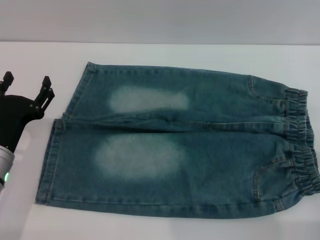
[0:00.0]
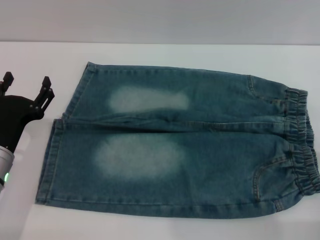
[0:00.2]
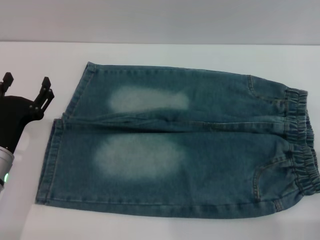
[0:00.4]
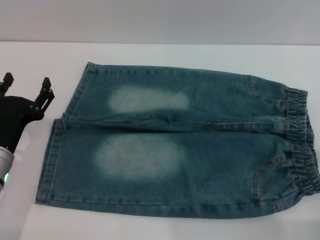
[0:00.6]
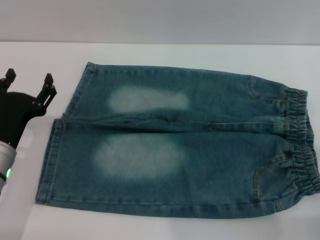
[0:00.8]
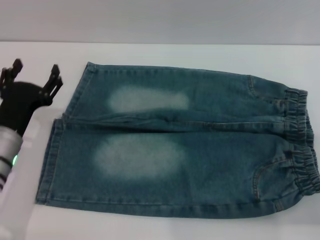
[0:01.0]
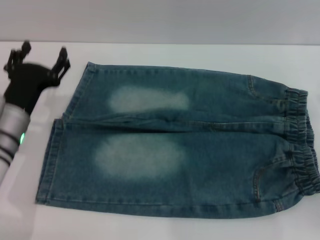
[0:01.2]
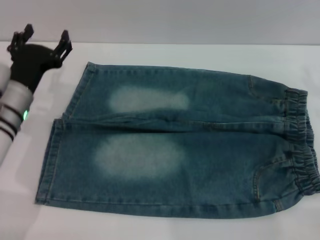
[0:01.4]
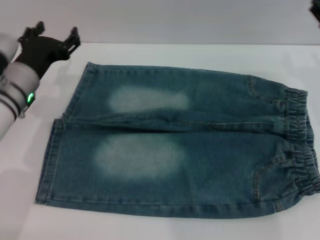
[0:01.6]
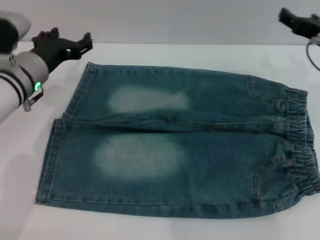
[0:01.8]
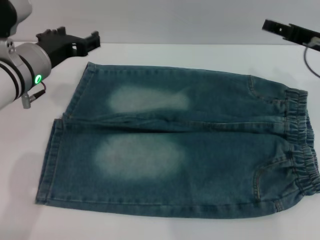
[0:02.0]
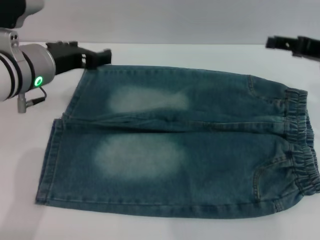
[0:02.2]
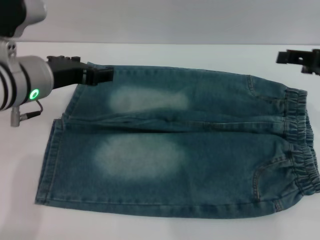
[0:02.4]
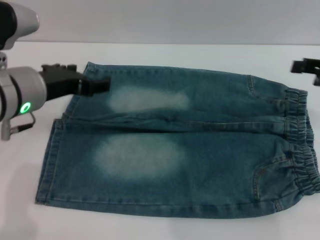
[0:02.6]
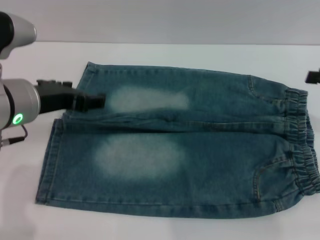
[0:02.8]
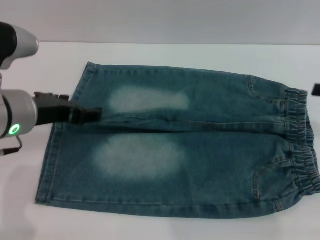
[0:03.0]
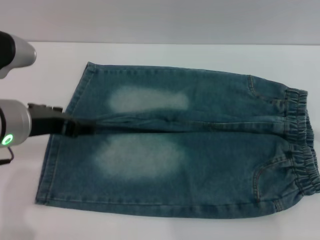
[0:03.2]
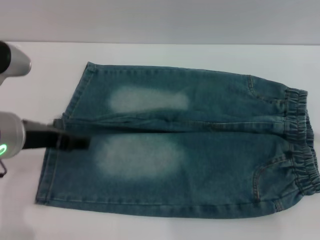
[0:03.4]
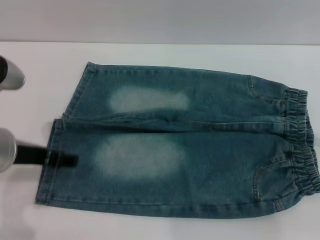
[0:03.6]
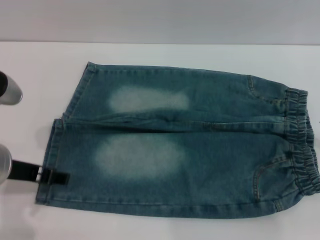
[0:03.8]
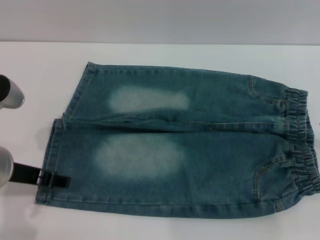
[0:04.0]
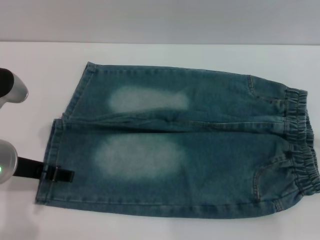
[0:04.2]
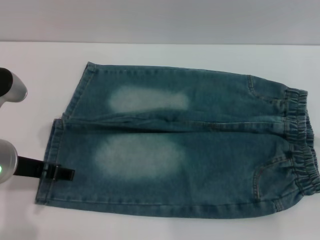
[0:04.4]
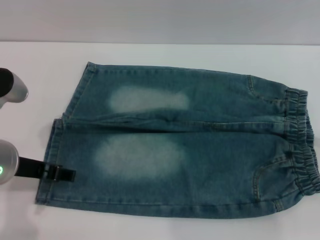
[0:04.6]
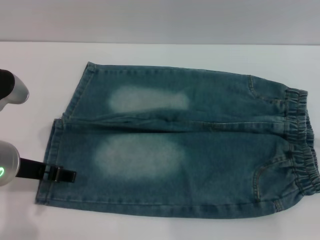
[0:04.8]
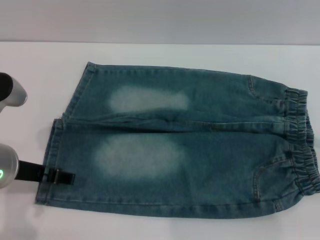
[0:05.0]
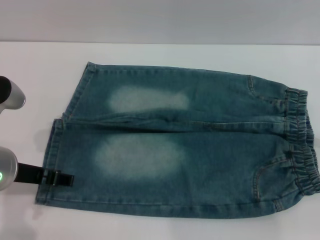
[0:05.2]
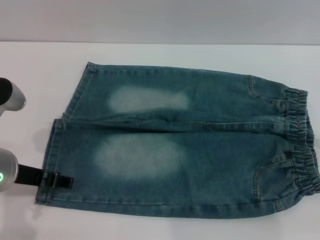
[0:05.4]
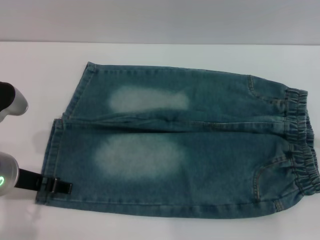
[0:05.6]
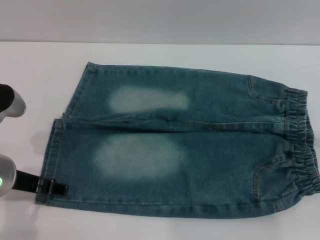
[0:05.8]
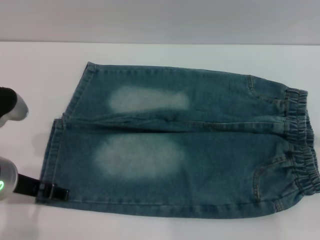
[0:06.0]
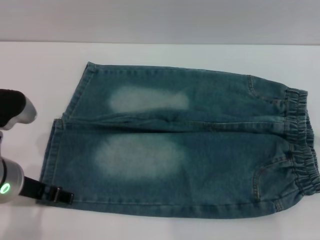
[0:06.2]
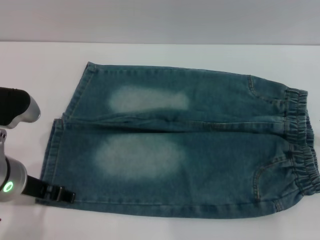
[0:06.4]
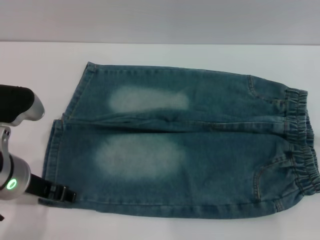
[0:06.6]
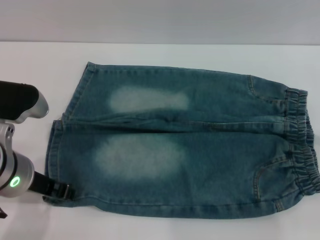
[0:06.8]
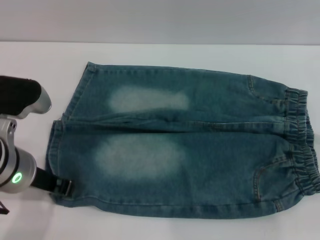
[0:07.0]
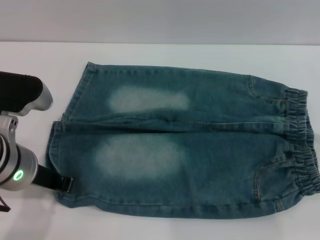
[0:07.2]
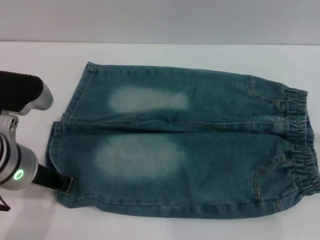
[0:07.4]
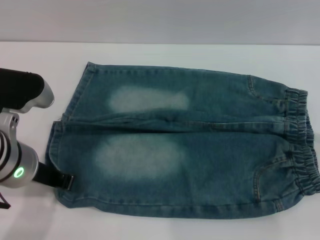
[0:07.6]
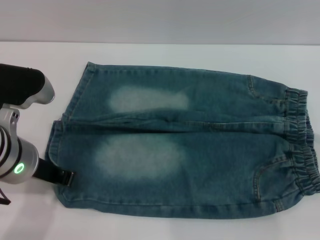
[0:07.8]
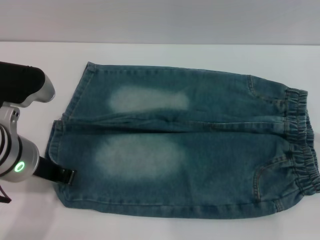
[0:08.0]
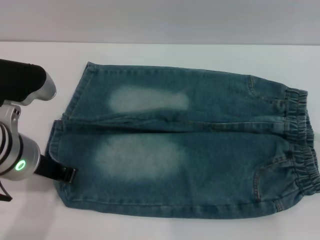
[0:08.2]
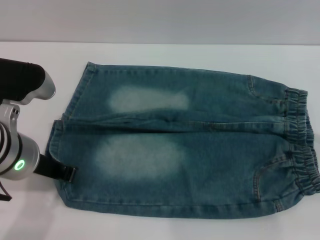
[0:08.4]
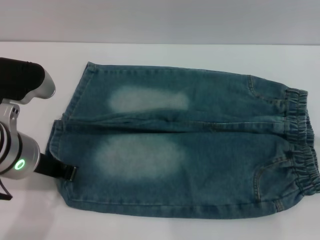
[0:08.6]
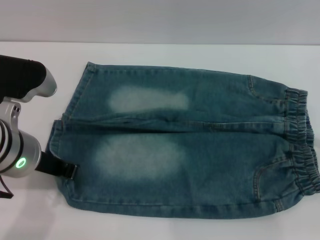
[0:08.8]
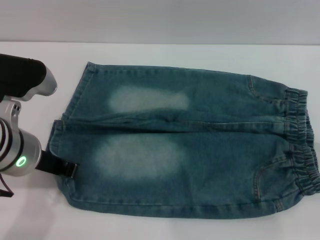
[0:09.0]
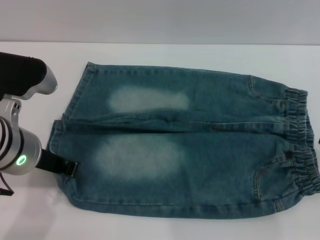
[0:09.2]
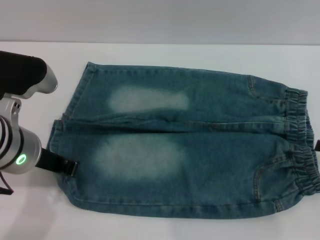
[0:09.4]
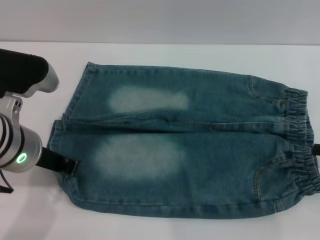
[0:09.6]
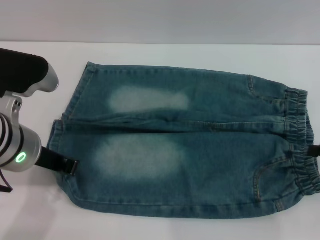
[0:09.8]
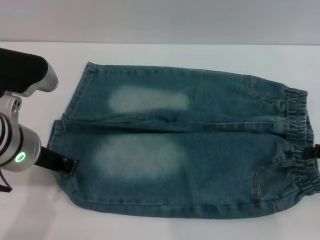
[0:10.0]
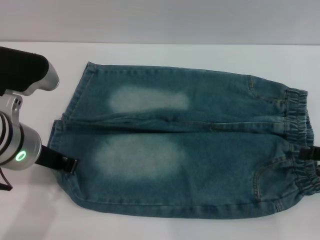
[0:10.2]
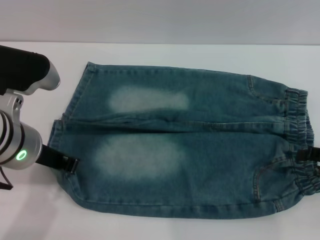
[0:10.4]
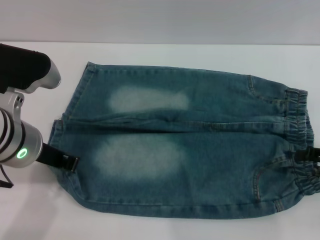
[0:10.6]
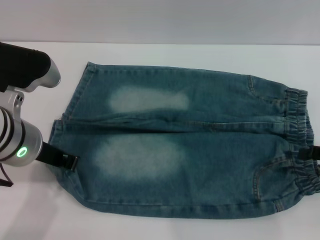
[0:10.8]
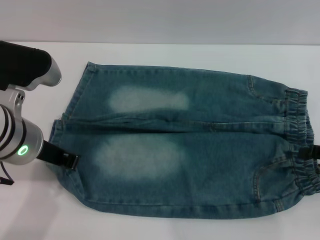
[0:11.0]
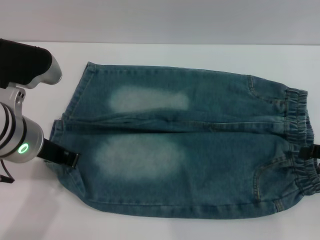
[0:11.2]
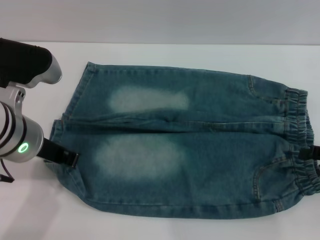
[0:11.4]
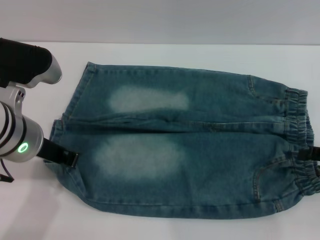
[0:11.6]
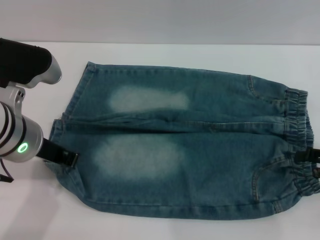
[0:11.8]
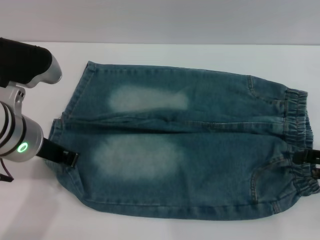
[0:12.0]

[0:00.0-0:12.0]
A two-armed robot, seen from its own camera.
0:00.0 to 0:01.6: The right gripper heads forward and upward, covering approximately 20 cm. Meanwhile the left gripper shifts roughly 15 cm forward and upward.
0:01.6 to 0:03.0: The left gripper travels backward and upward by some 10 cm.
0:04.4 to 0:06.0: The grippers stay close to where they were, moving slightly.
0:06.0 to 0:07.6: The left gripper closes its fingers.
0:07.6 to 0:10.4: The grippers make only small movements.
0:10.4 to 0:12.0: Neither gripper changes place.

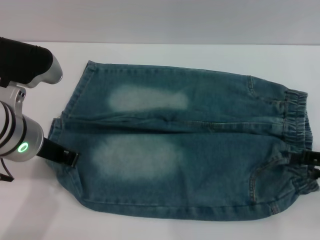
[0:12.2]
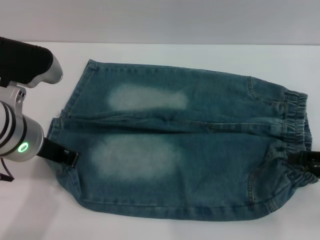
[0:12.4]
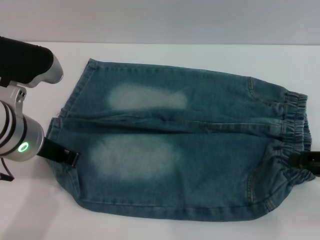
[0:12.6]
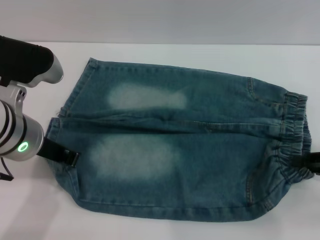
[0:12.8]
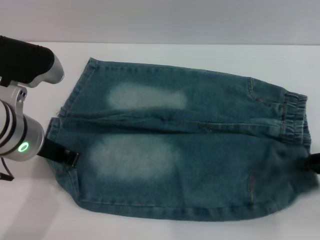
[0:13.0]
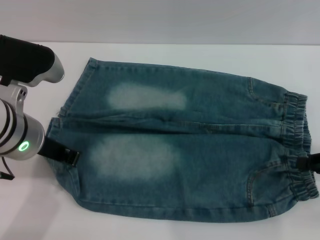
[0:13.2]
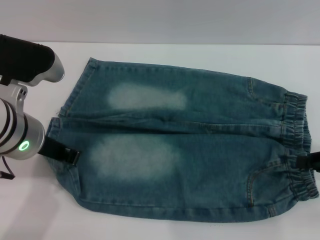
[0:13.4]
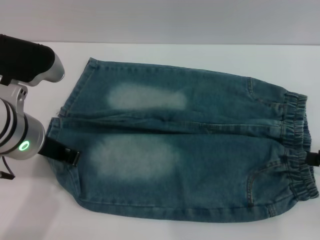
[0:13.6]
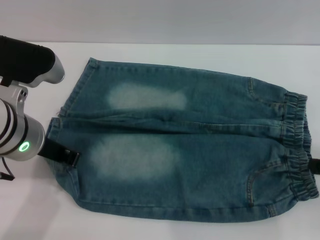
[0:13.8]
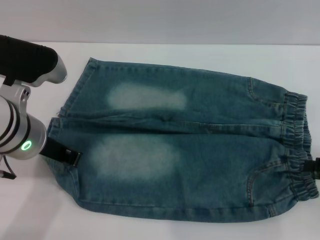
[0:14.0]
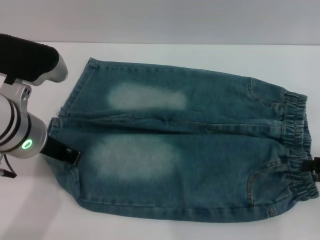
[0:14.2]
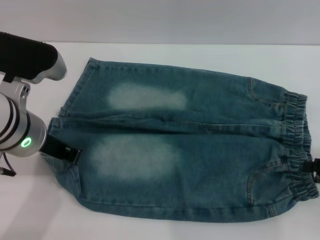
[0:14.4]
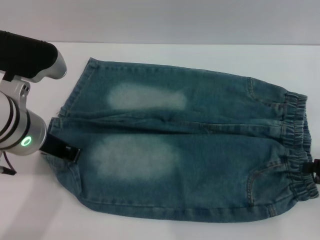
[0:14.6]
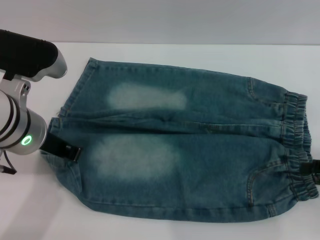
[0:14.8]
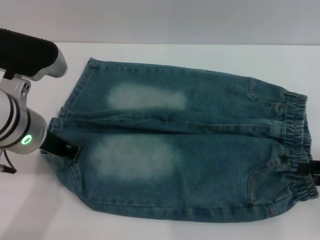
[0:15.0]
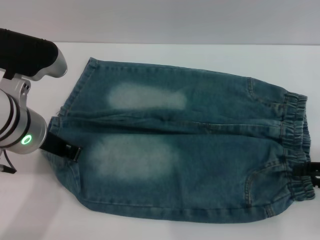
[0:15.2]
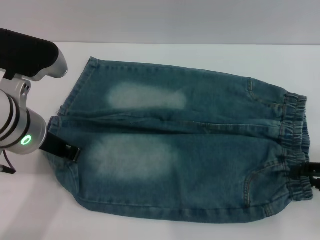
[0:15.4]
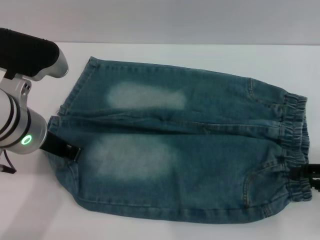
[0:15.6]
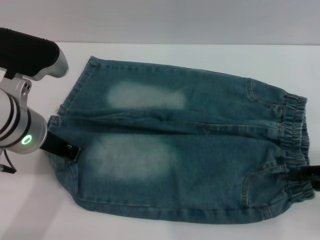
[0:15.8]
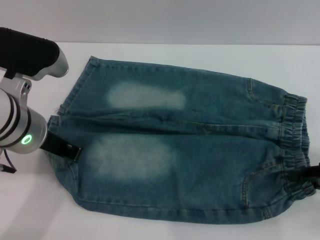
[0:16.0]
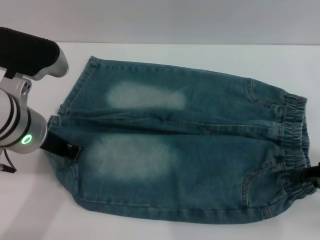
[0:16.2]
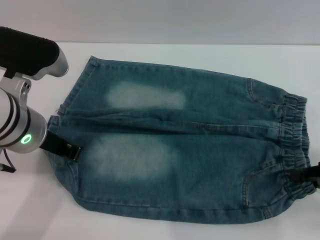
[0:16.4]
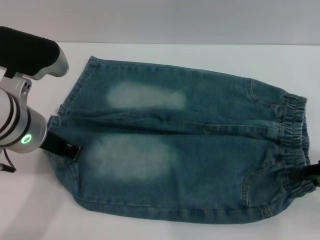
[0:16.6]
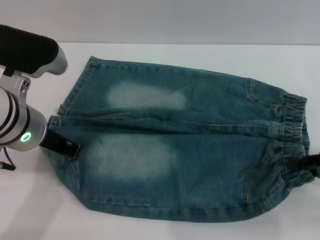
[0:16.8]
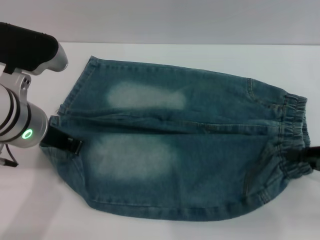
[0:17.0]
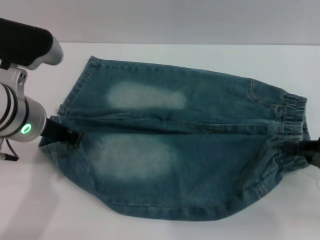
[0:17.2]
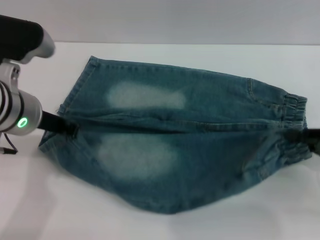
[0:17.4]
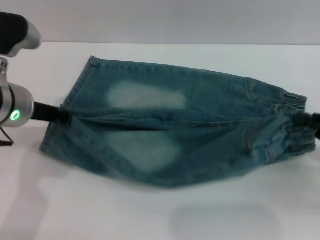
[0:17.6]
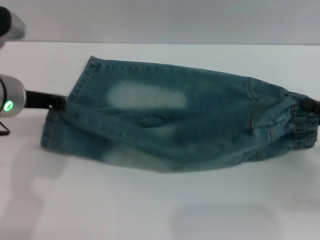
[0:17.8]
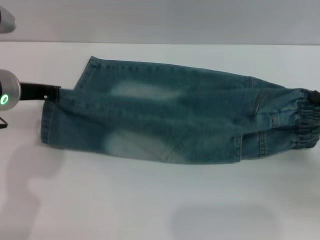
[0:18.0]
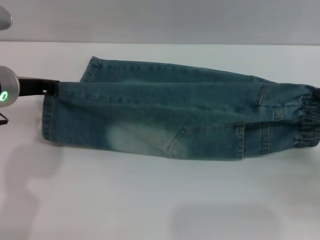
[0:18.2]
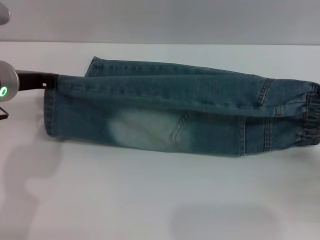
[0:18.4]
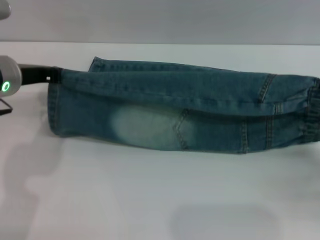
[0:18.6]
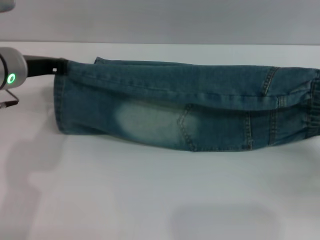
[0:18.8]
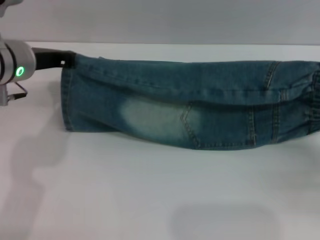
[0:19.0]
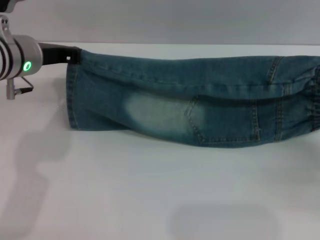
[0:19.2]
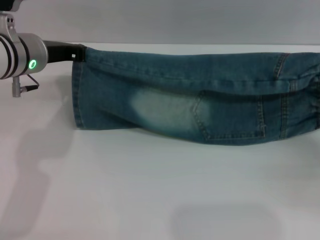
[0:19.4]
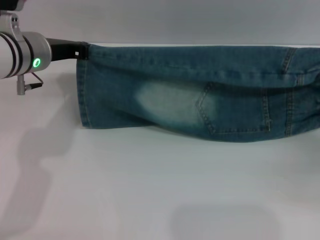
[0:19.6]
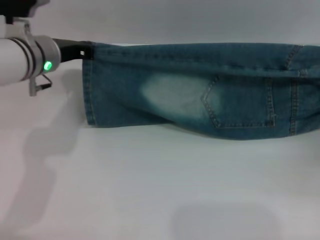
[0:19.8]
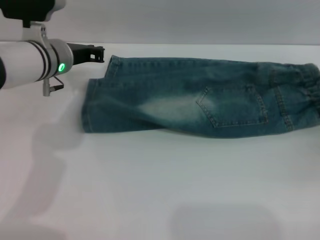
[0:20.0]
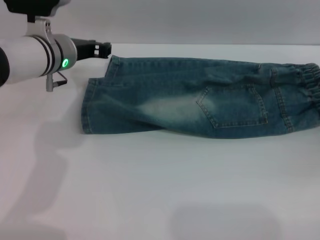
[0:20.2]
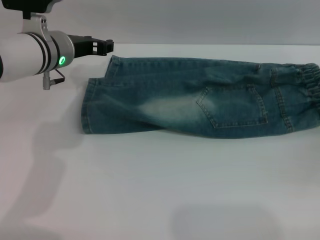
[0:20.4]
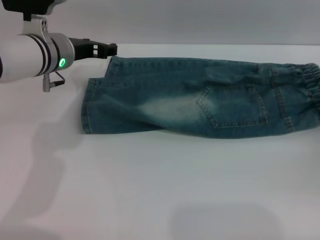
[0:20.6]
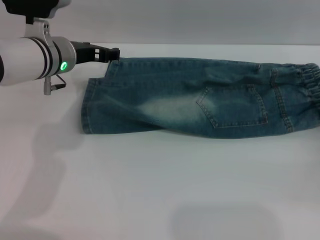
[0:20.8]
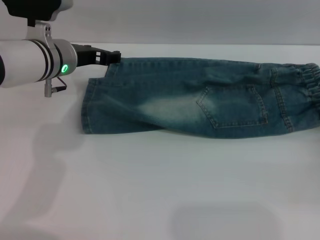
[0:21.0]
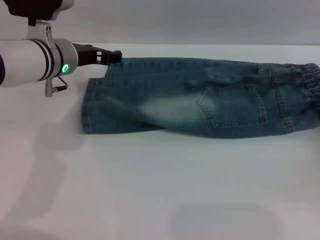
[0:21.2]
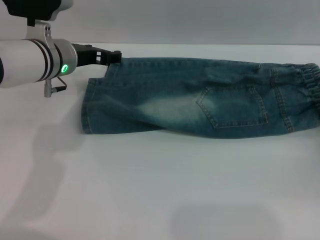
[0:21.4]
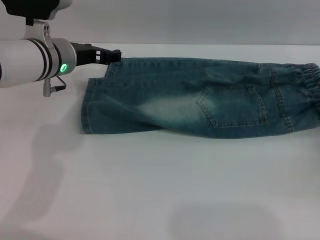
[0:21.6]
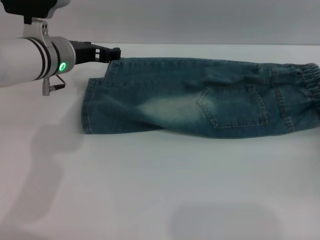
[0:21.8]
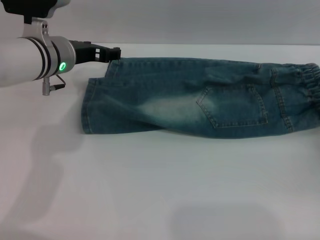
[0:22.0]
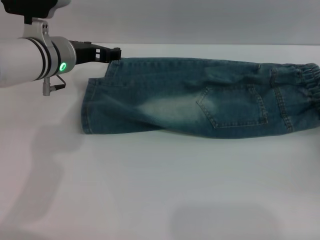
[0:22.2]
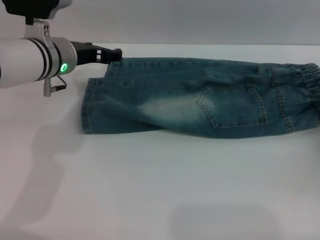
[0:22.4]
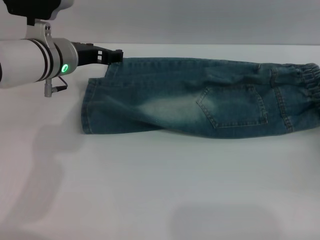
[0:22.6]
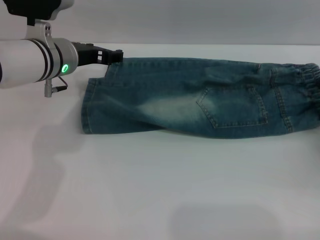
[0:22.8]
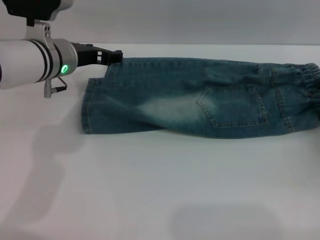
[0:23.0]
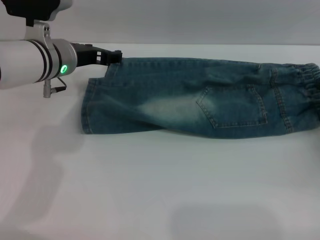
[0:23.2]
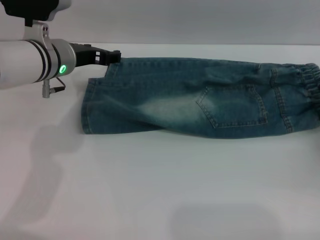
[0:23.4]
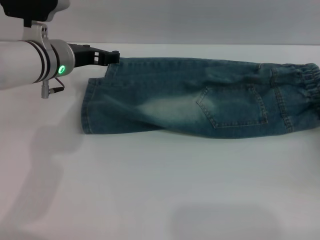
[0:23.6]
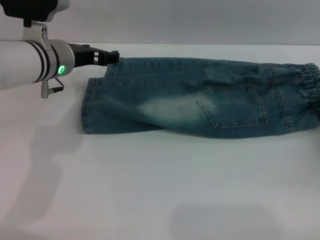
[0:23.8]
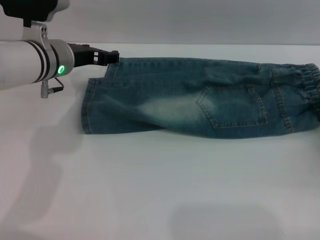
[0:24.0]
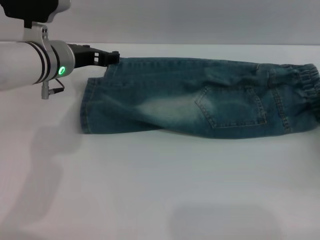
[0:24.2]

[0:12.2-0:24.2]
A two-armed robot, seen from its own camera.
Step, 0:12.2 to 0:23.6: Fold the bottom of the pants upward with both grippers.
0:12.2 to 0:13.8: The right gripper closes up.
0:13.8 to 0:15.2: The right gripper opens its fingers.
0:15.2 to 0:16.6: The right gripper closes its fingers.
0:16.6 to 0:18.2: The left gripper moves about 5 cm.
0:18.2 to 0:19.8: Both grippers move forward, about 5 cm.
0:19.8 to 0:21.2: The right gripper opens its fingers. Meanwhile the left gripper opens up.
0:21.2 to 0:22.6: The grippers stay close to where they were, moving slightly.
